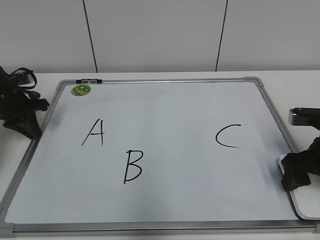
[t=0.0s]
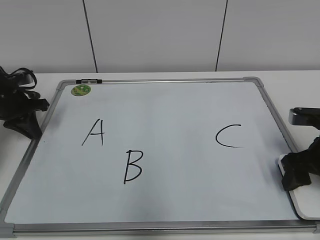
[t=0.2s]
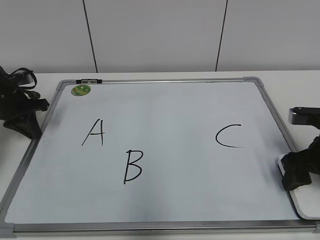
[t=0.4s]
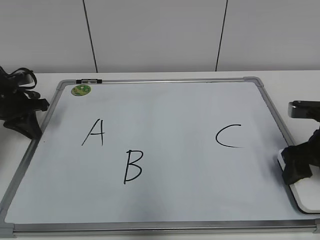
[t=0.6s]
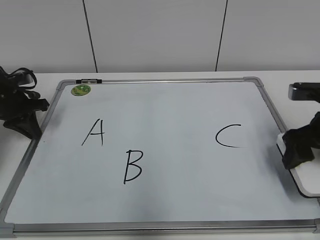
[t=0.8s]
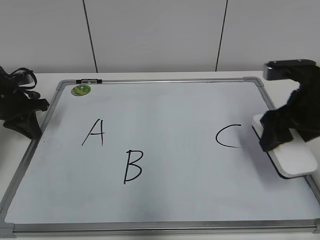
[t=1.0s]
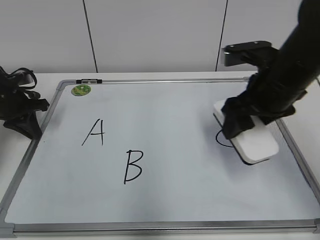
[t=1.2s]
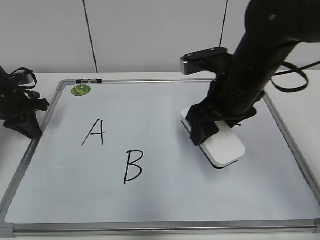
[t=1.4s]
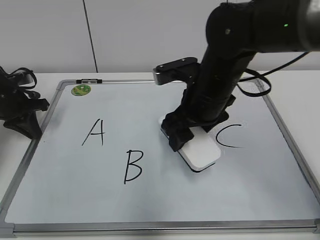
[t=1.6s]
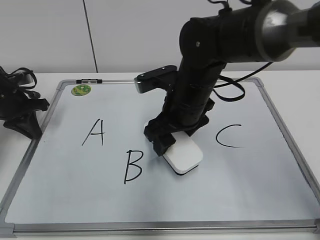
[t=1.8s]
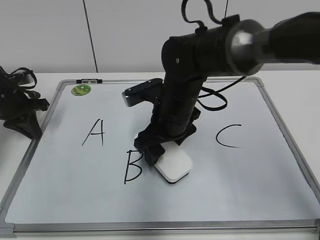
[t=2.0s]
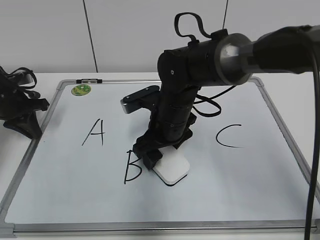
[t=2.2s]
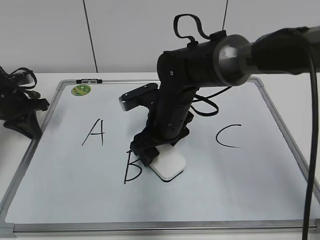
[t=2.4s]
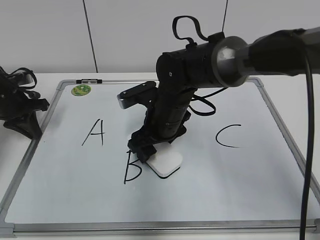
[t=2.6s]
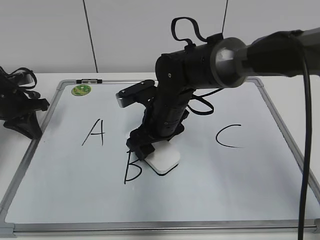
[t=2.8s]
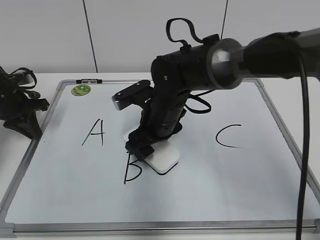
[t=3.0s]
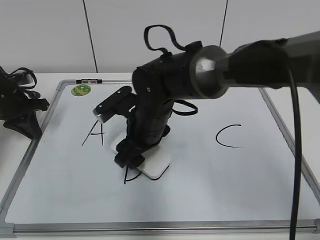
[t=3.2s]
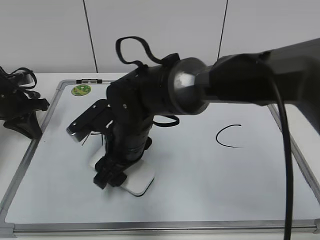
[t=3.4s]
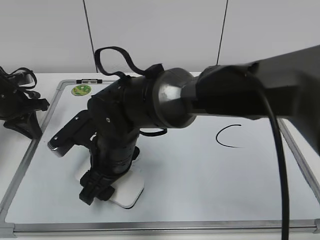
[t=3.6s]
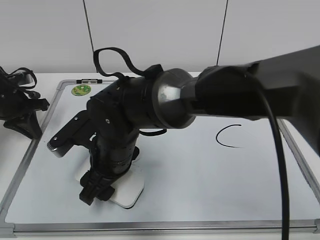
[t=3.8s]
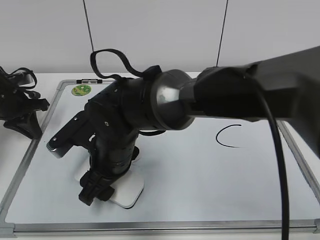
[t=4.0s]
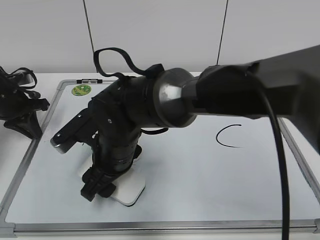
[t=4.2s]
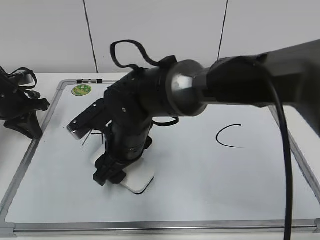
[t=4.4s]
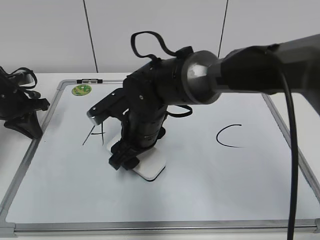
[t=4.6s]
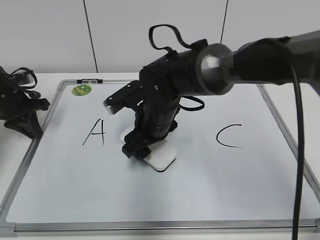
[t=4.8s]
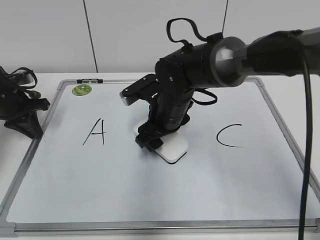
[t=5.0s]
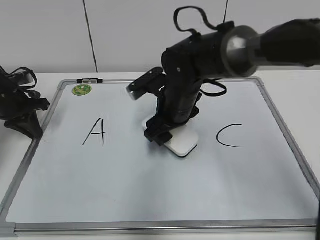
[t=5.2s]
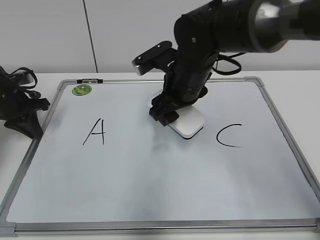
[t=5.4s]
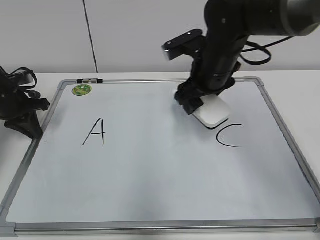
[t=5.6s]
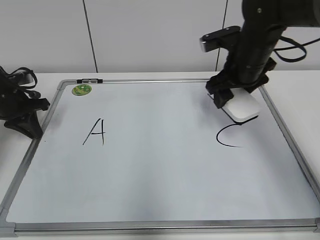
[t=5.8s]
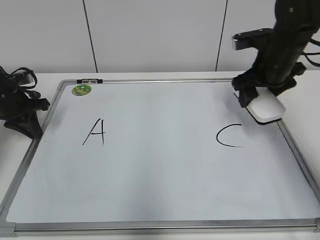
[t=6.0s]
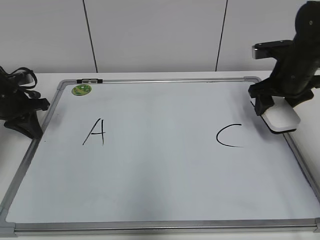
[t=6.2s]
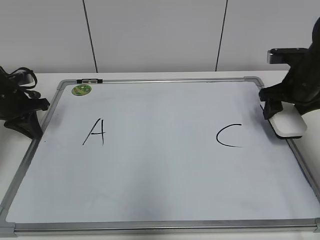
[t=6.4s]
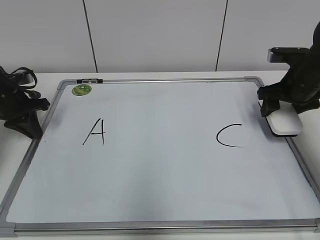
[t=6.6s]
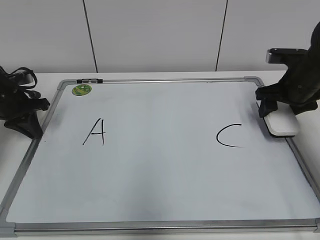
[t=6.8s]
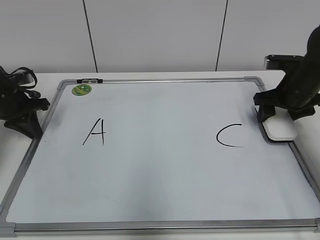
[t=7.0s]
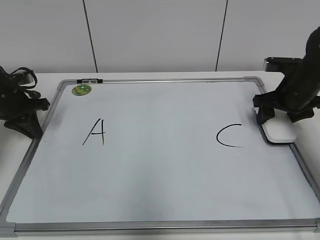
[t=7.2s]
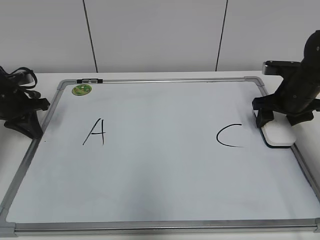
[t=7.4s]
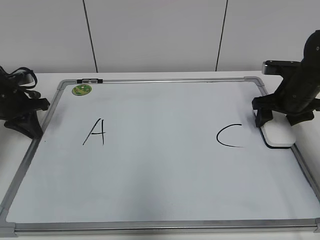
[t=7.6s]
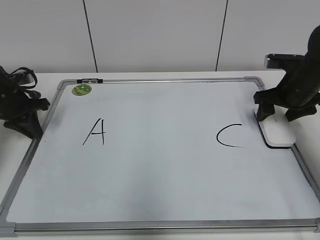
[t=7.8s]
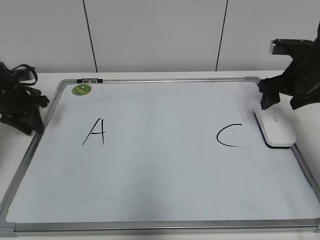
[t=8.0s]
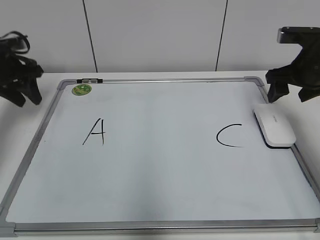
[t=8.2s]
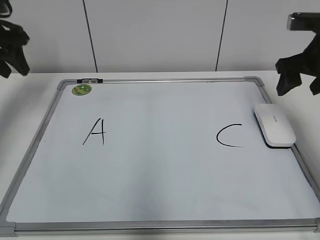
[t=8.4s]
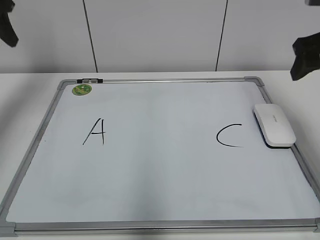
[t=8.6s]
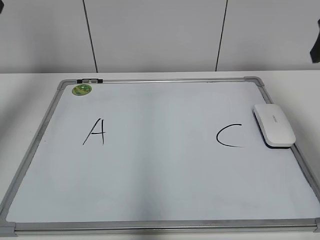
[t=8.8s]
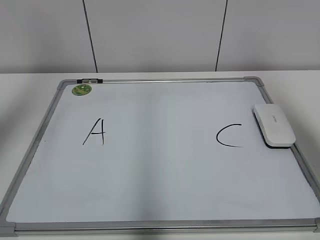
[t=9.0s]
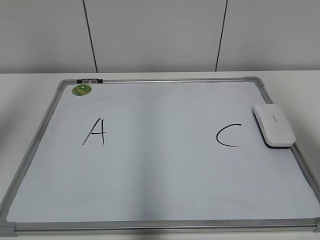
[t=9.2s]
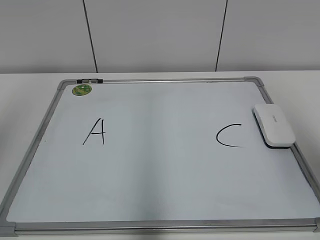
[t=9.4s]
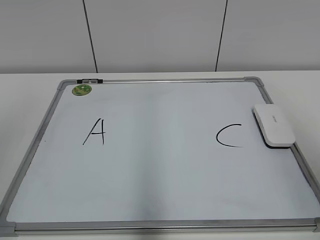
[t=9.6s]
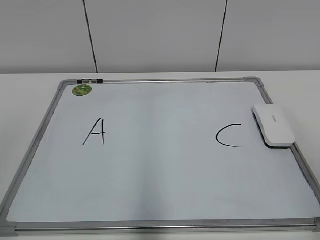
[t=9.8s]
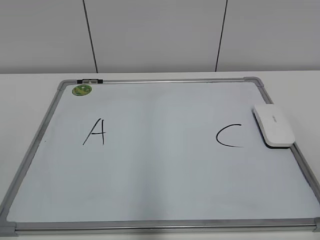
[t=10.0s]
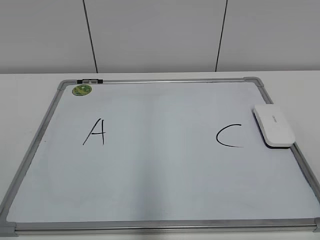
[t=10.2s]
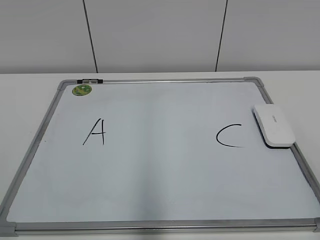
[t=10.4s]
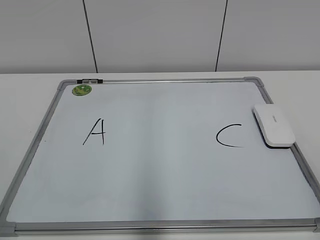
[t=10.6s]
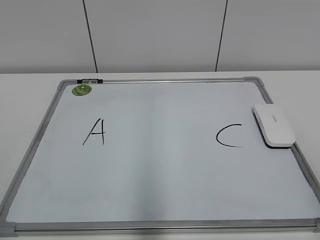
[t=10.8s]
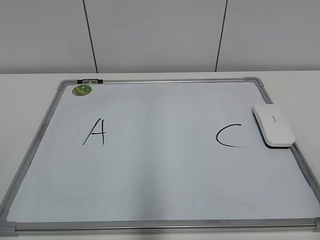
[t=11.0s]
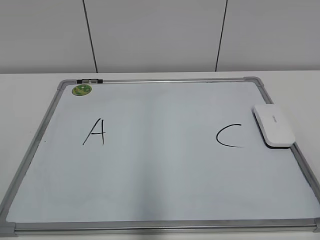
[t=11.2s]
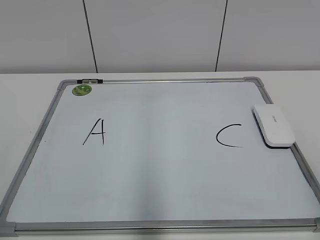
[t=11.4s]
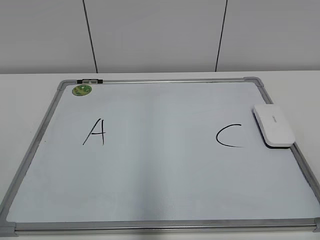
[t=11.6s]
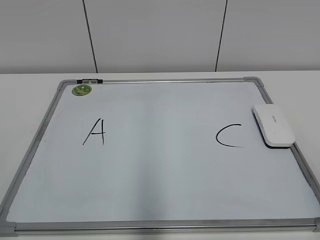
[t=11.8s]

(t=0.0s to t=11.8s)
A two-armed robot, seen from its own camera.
Task of the whole recording: pick up the eraser on the blackboard and erase the letter "B".
Step, t=0.6s - t=4.8s: Erase the letter B with your right hand.
Step, t=5.0s - t=7.4s: Put down the eraser with your right hand.
t=0.0s - t=1.4s: The right gripper goes approximately 20 cm to the left and upward.
t=1.4s - t=3.0s: The right gripper travels to the left and downward by about 15 cm.
t=3.0s - t=4.4s: The right gripper moves to the left and backward, about 10 cm.
t=4.4s - t=6.0s: The right gripper is displaced to the right and forward by roughly 30 cm.
t=6.0s - t=7.4s: The right gripper heads to the right and downward, covering roughly 10 cm.
t=7.4s - t=8.8s: The right gripper goes about 25 cm upward and backward. Meanwhile the left gripper travels upward by some 30 cm, and opens.
t=8.8s - t=10.4s: The two grippers go some 35 cm backward.

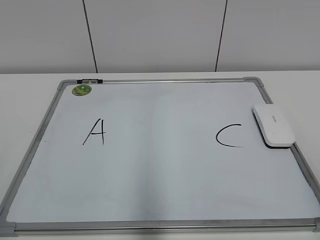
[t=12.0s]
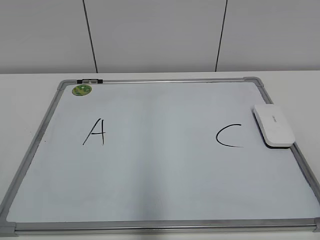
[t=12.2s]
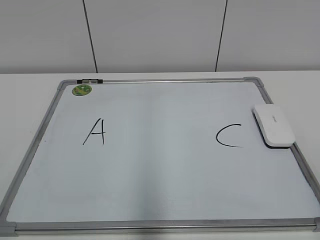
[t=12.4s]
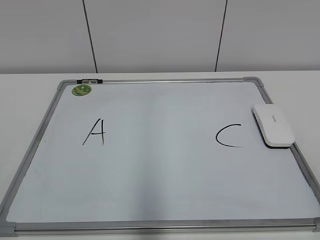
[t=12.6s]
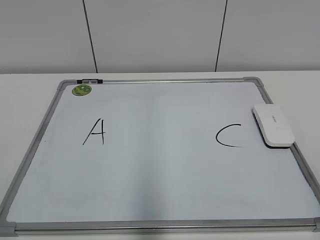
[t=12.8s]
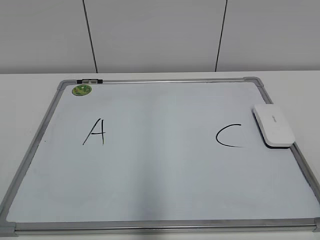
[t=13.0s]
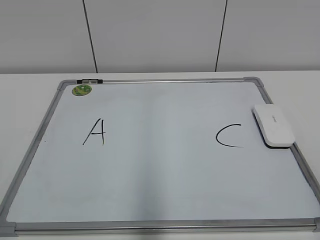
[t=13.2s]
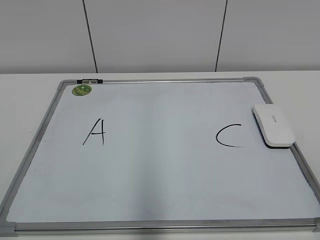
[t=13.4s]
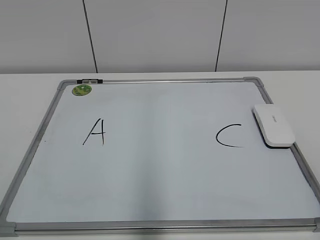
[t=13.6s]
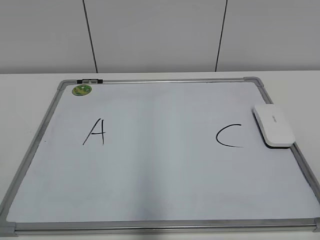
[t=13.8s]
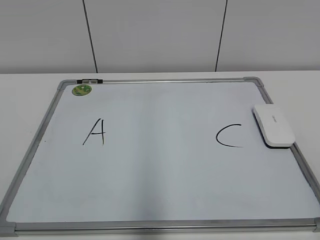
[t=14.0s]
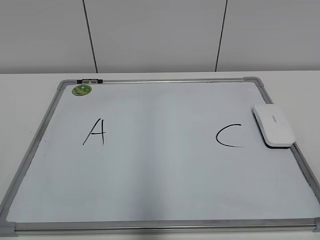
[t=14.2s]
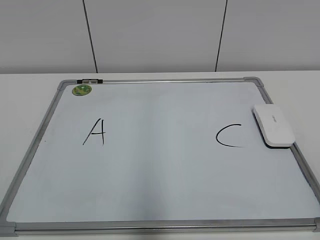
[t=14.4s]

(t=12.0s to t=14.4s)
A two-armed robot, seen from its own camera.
Task of the whole recording: pick up the eraser on the blackboard and erase the letter "B".
t=13.2s - t=14.4s: The two grippers keep their place.
